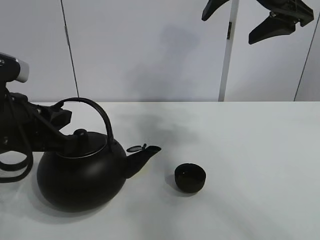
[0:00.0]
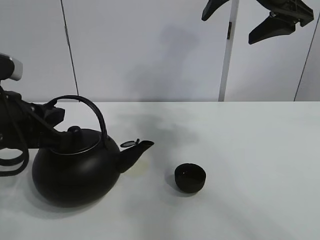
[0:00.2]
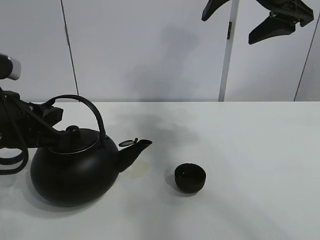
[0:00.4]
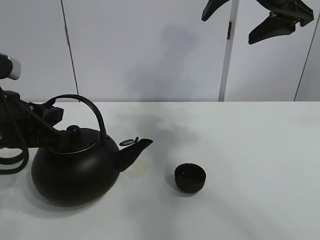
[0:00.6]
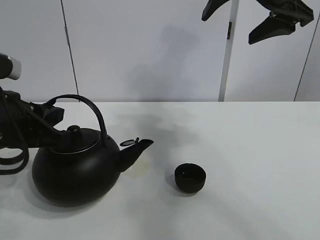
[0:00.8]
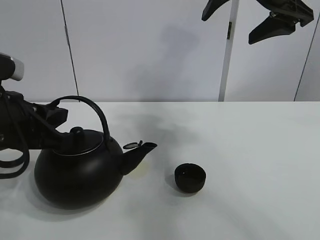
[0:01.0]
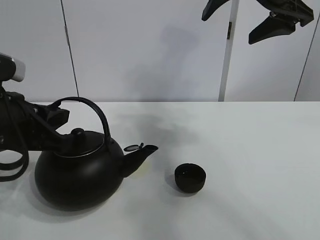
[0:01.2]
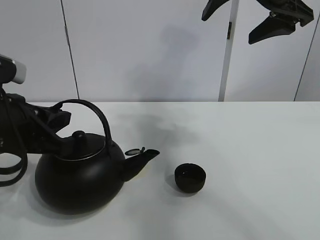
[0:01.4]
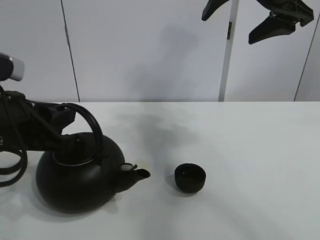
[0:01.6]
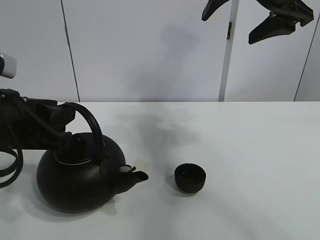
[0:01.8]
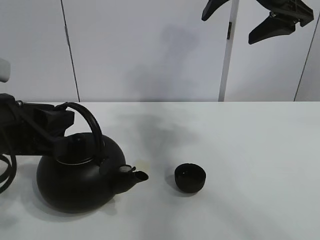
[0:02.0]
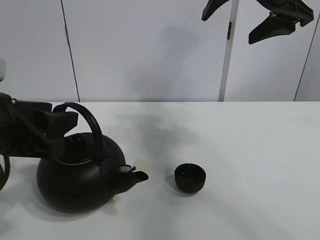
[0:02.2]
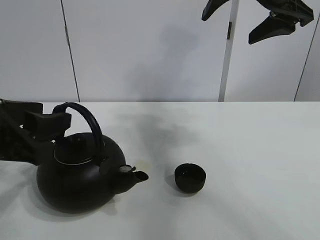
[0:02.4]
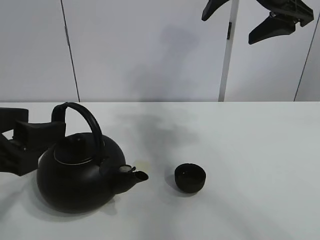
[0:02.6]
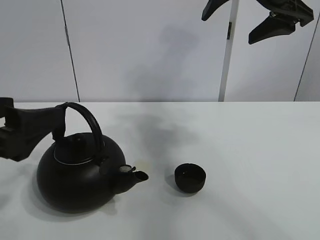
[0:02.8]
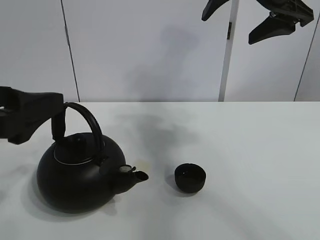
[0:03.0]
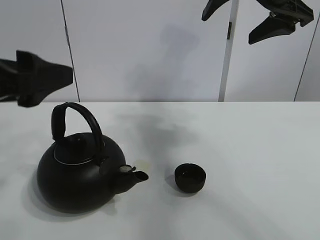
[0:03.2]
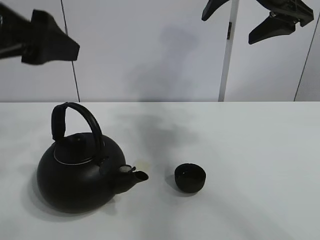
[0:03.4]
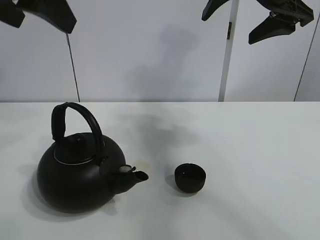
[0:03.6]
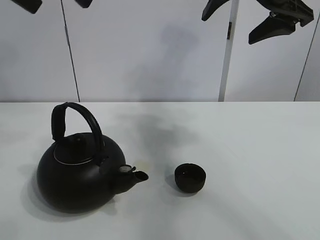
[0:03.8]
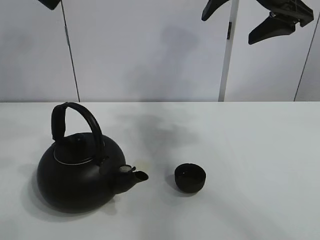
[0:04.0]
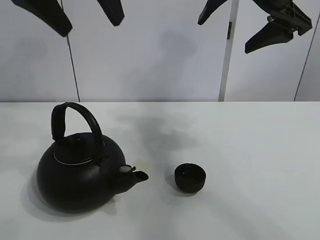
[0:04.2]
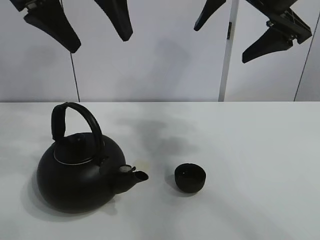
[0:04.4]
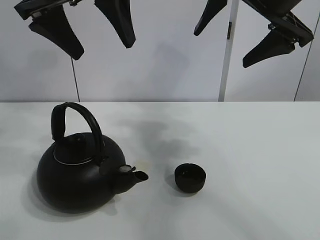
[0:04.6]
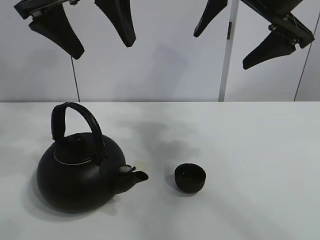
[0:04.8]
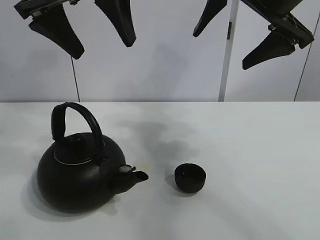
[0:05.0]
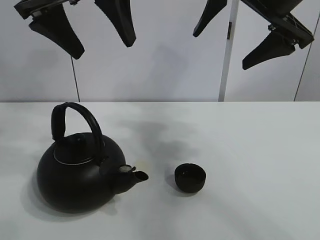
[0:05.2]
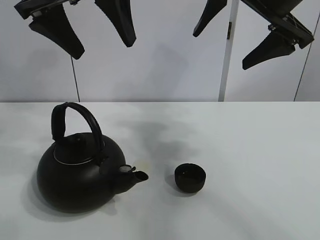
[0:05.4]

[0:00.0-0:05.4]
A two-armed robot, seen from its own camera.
Task of the whole recording: pour tea into the teacup.
0:00.0 to 0:01.4: Both grippers stay about where they are.
0:01.4 to 0:02.8: The left gripper shifts roughly 5 cm backward, and opens up.
0:02.8 to 0:04.0: The left gripper goes about 25 cm upward and forward.
0:04.0 to 0:05.4: The left gripper travels downward by about 5 cm.
